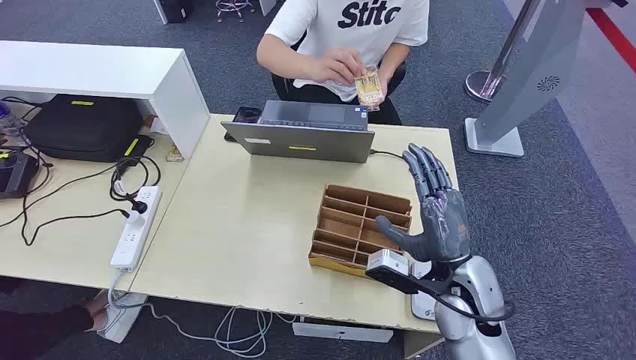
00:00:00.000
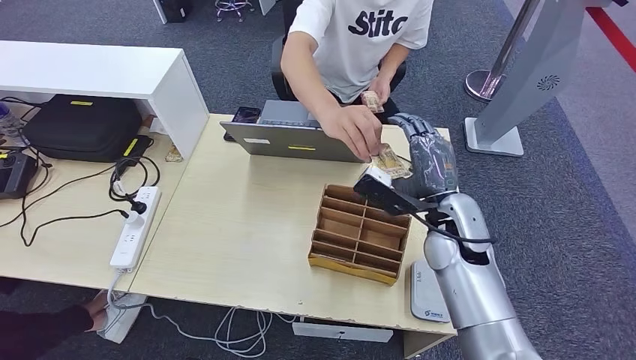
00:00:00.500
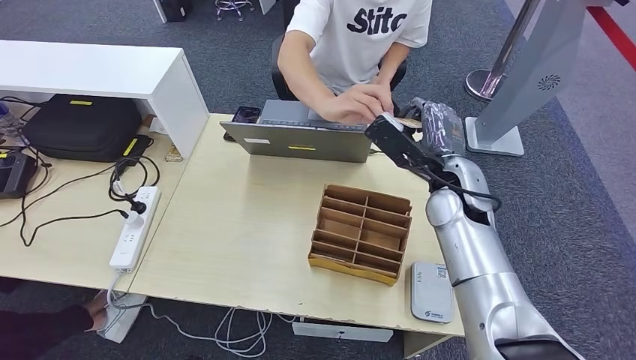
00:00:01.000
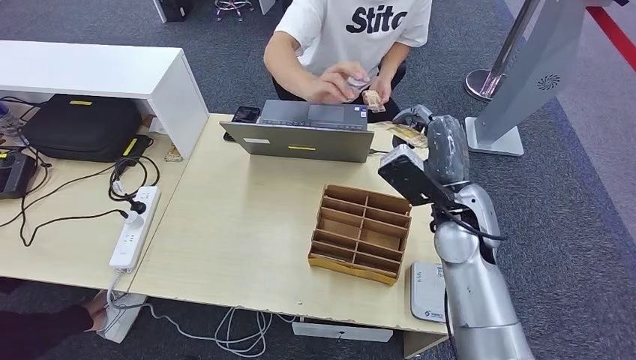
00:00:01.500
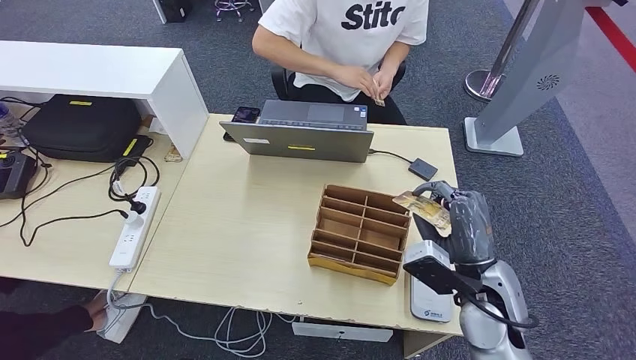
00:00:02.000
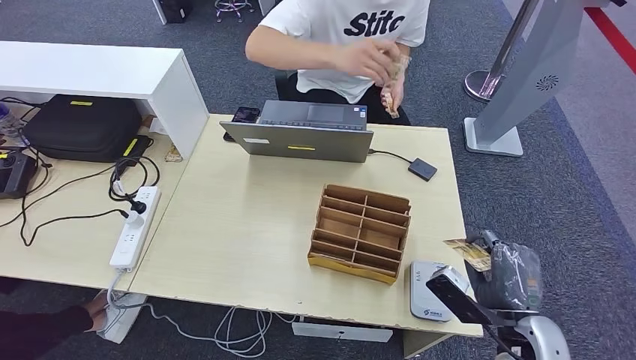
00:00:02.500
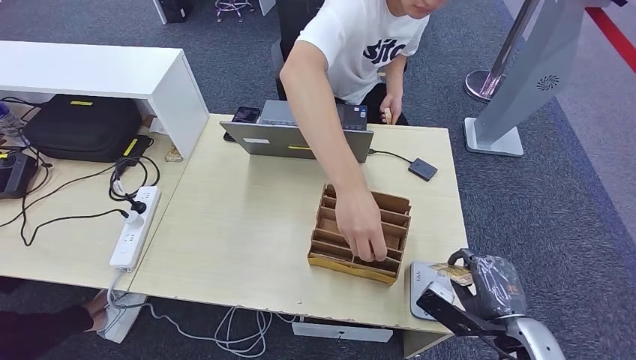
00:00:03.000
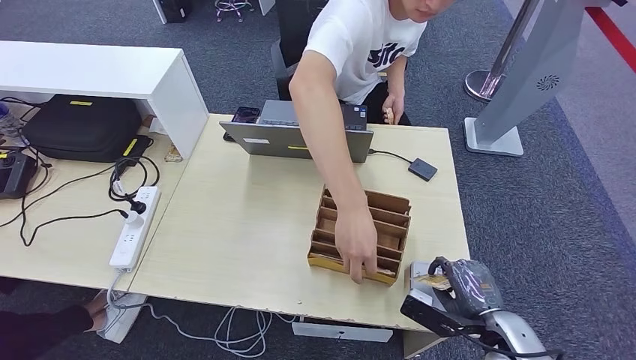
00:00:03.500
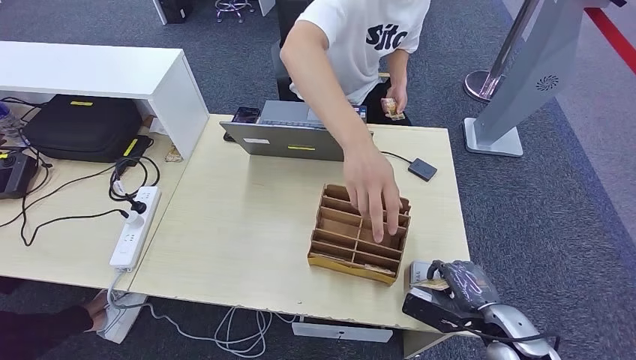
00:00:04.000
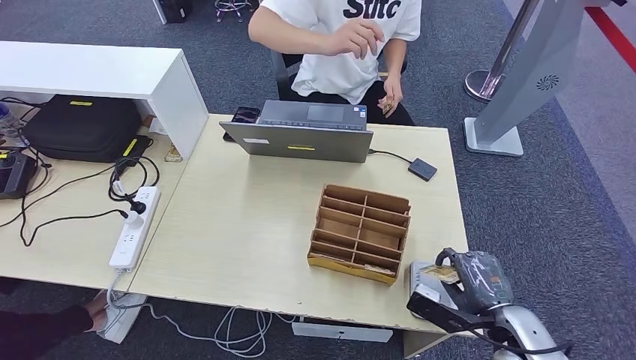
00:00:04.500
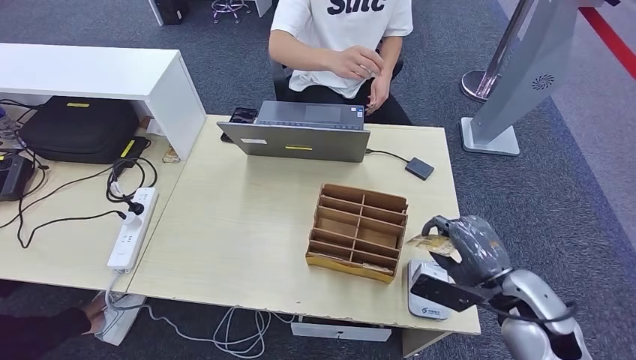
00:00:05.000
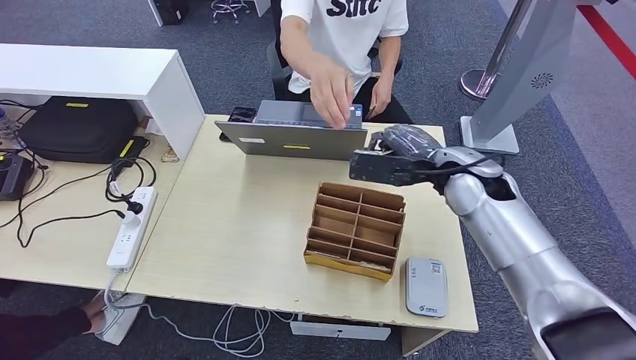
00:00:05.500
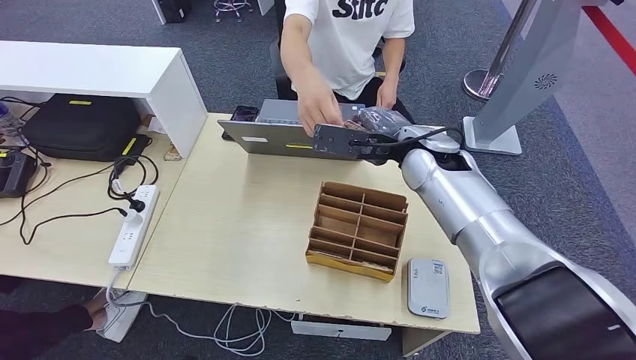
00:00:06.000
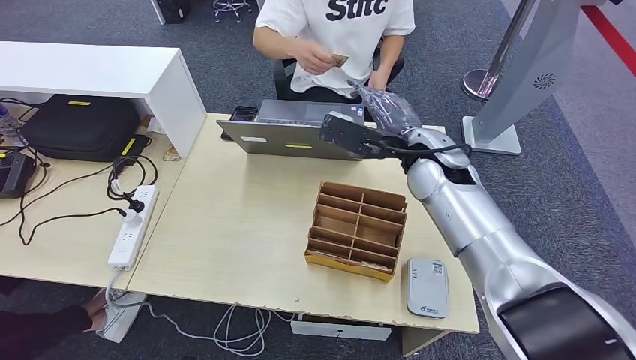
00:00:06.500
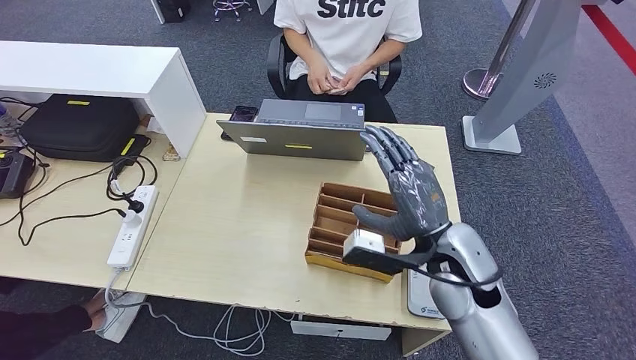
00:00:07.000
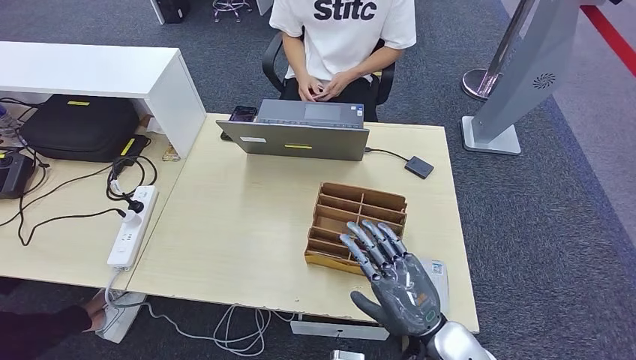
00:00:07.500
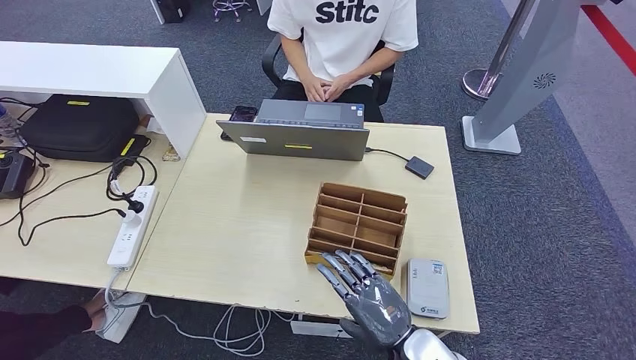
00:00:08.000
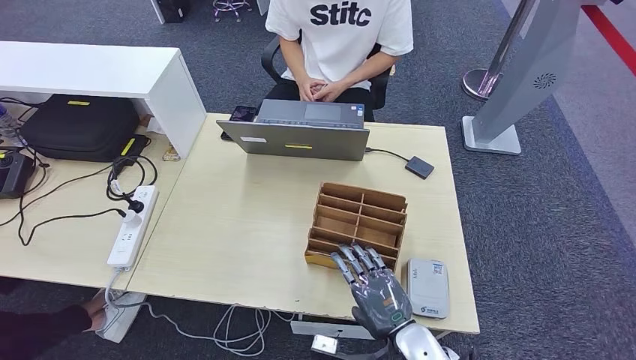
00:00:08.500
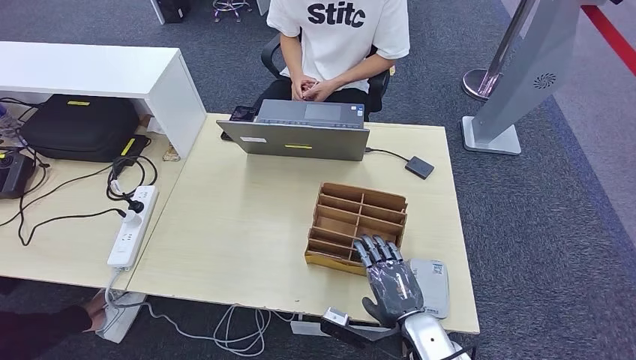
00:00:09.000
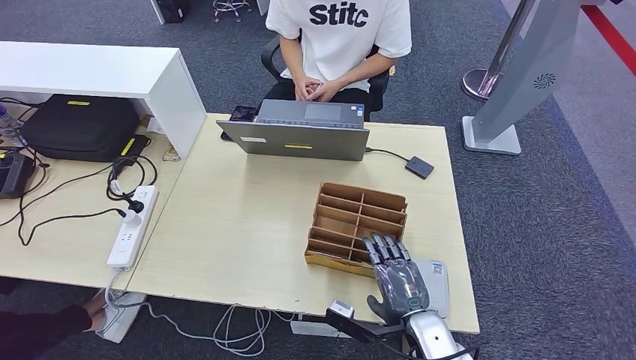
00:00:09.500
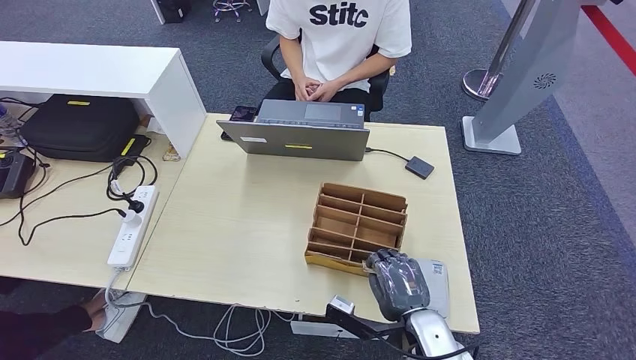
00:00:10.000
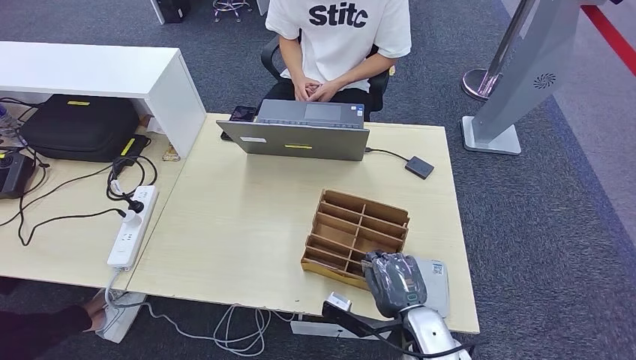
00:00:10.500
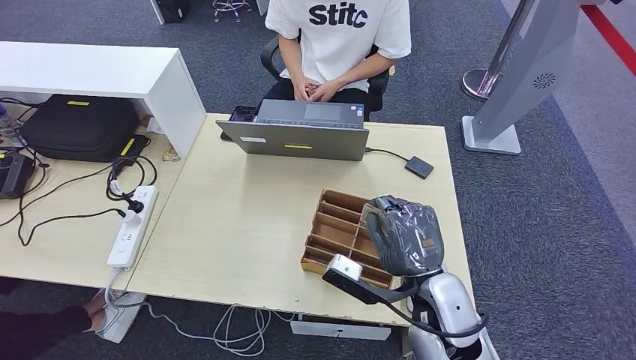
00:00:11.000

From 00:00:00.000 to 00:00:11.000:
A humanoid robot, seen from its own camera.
Step, from 00:00:00.000 to 00:00:02.000: Take the ID card from the person's hand.
Step, from 00:00:02.500 to 00:00:04.500: Place the ID card on the card reader.
Step, from 00:00:05.000 to 00:00:07.500: Hand the ID card to the person.
From 00:00:02.000 to 00:00:03.500: The right hand heads downward and to the right, covering approximately 10 cm.
From 00:00:07.500 to 00:00:09.000: The right hand goes some 5 cm downward.
From 00:00:09.000 to 00:00:11.000: The right hand is displaced upward by some 10 cm.

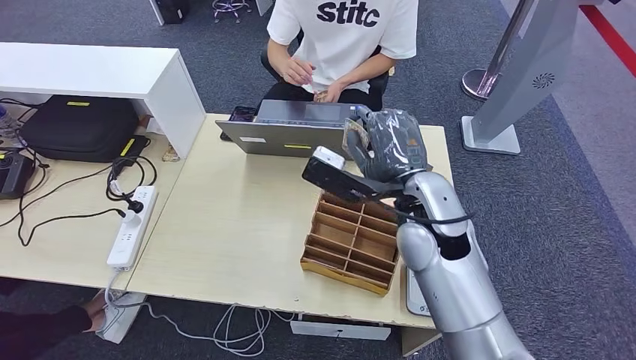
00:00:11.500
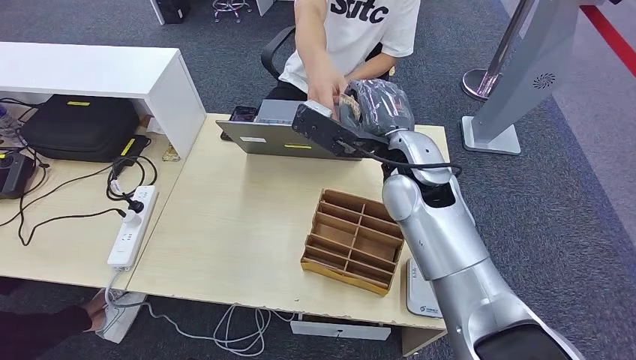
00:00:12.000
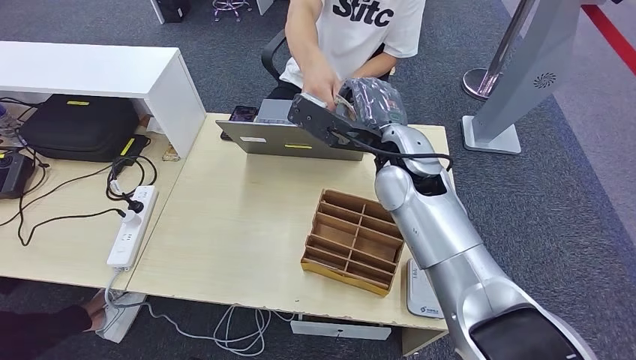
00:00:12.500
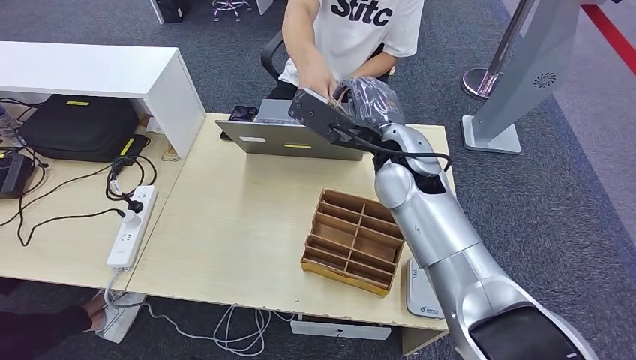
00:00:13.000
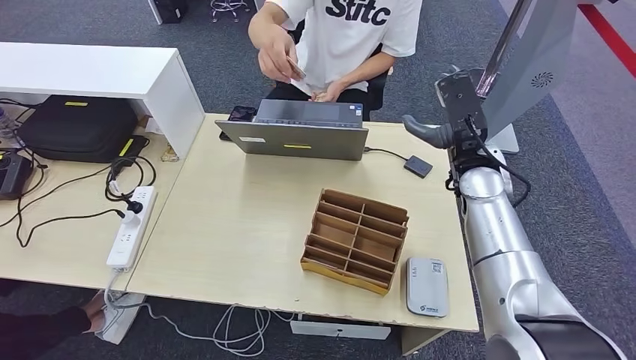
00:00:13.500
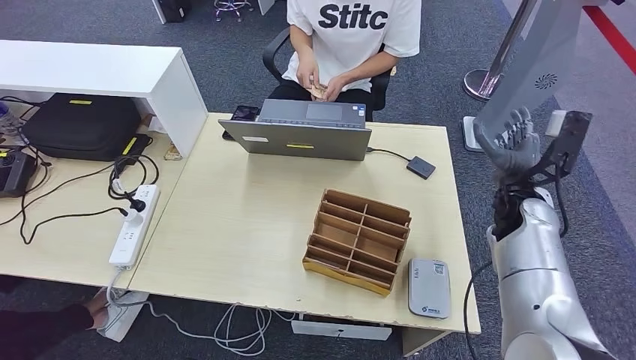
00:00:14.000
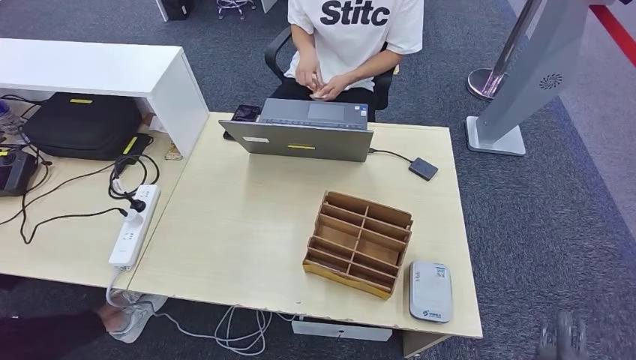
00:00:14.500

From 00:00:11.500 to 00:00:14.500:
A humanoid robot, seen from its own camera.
Step, from 00:00:12.000 to 00:00:14.500: Hand the room key to the person.
From 00:00:11.500 to 00:00:13.000: The right hand shifts roughly 5 cm forward.
